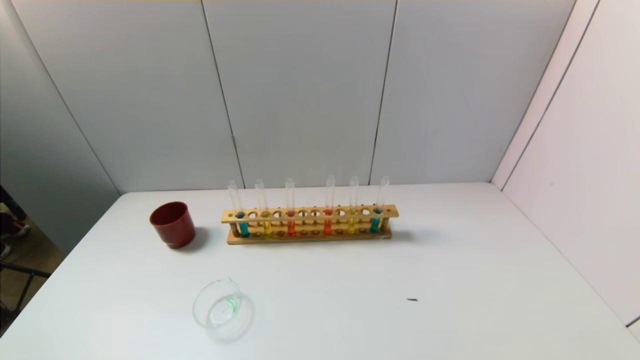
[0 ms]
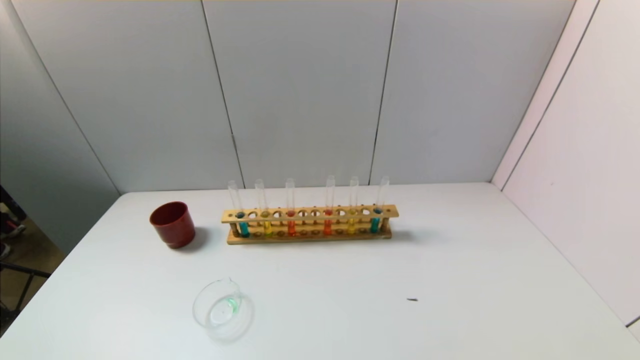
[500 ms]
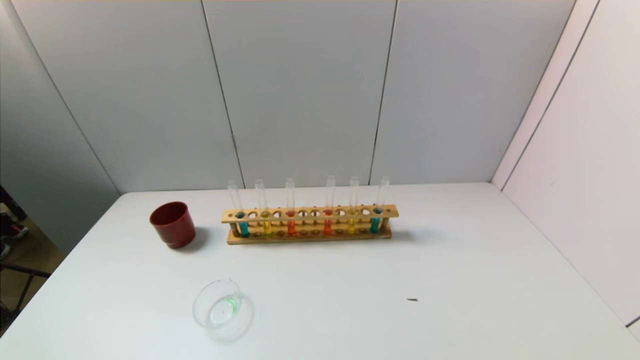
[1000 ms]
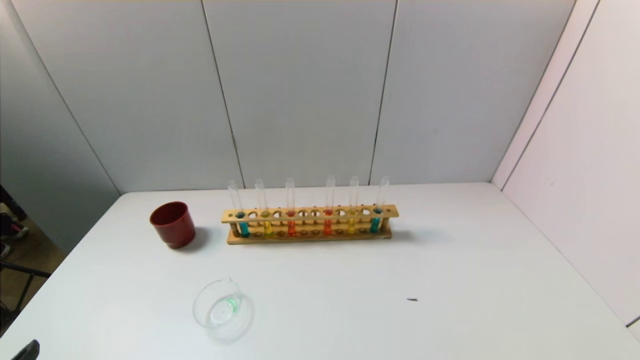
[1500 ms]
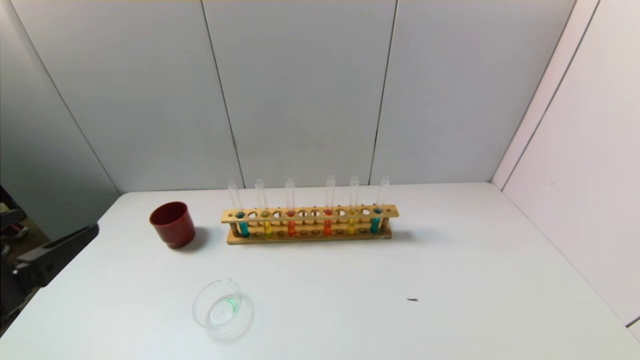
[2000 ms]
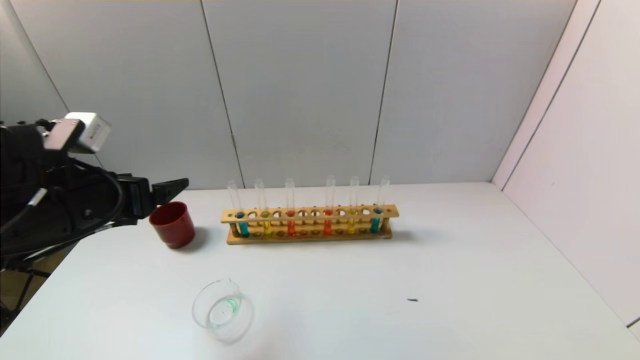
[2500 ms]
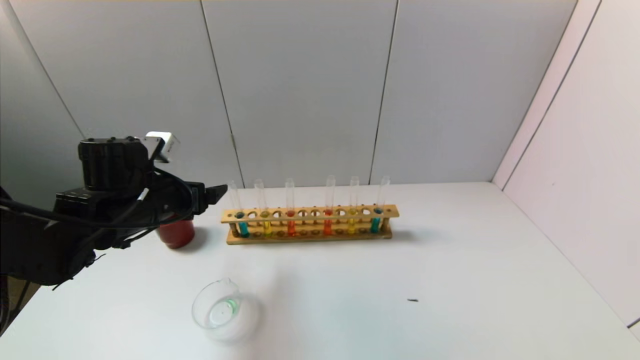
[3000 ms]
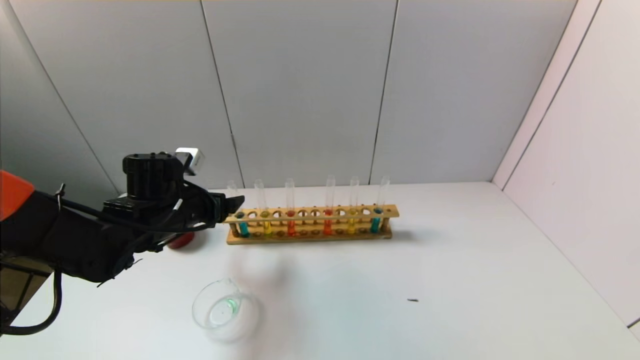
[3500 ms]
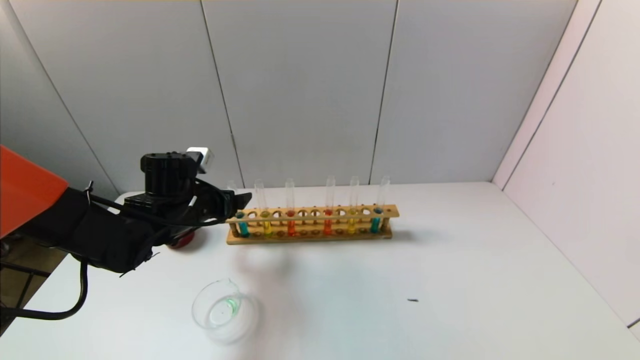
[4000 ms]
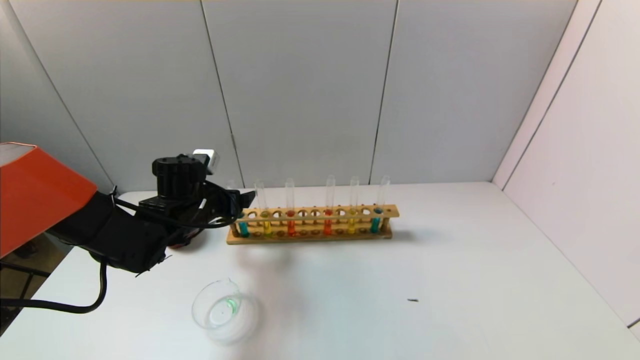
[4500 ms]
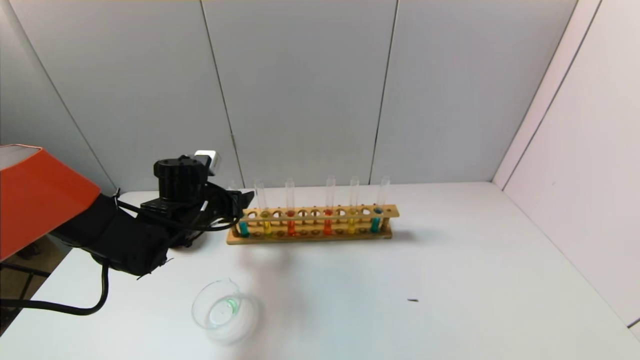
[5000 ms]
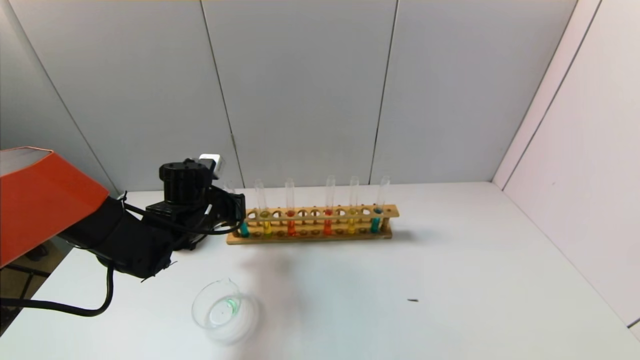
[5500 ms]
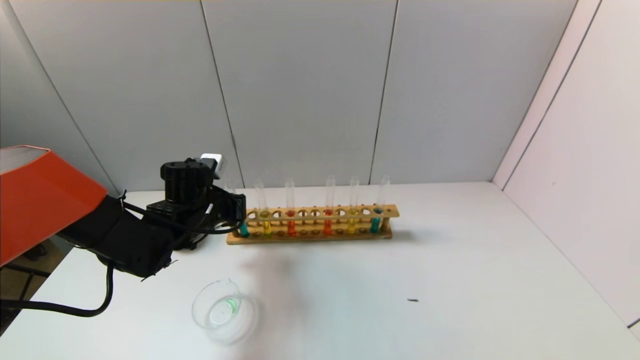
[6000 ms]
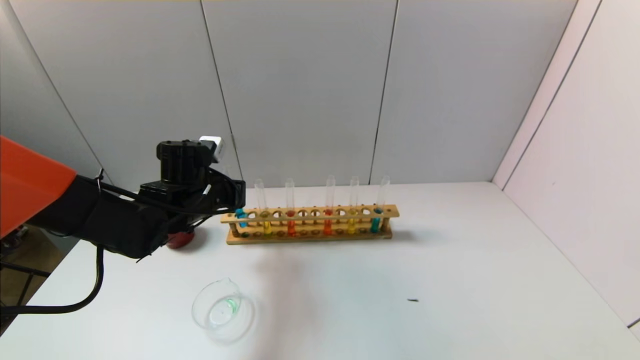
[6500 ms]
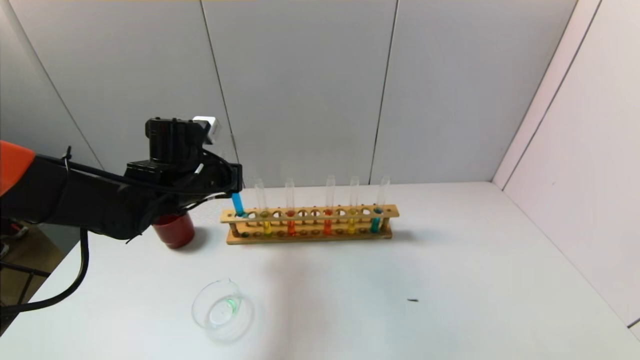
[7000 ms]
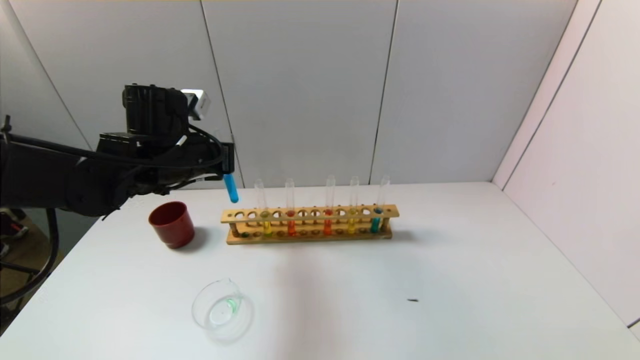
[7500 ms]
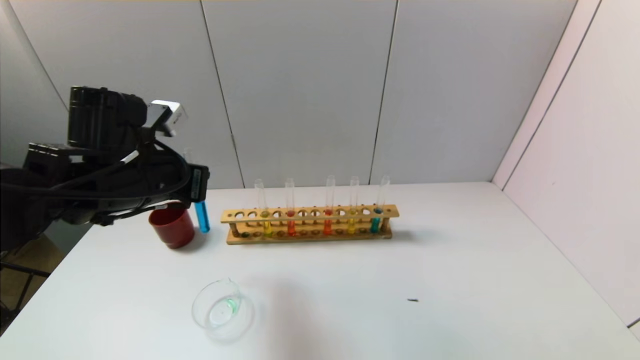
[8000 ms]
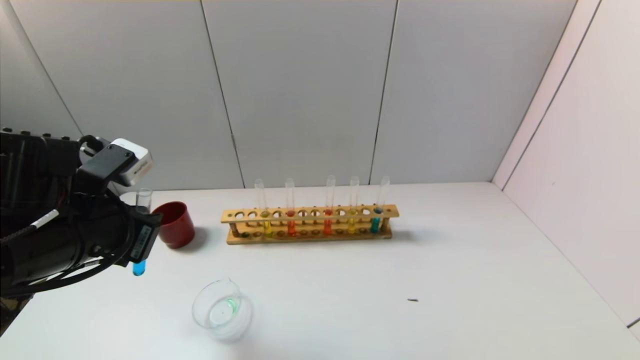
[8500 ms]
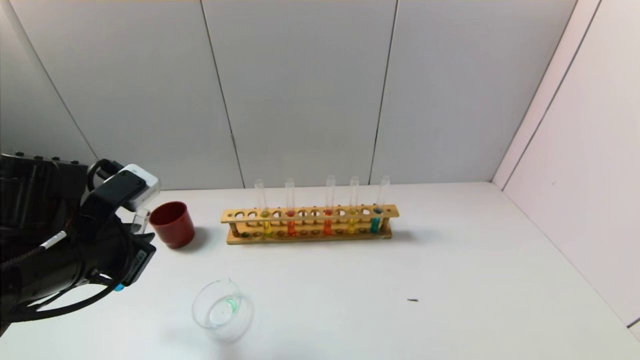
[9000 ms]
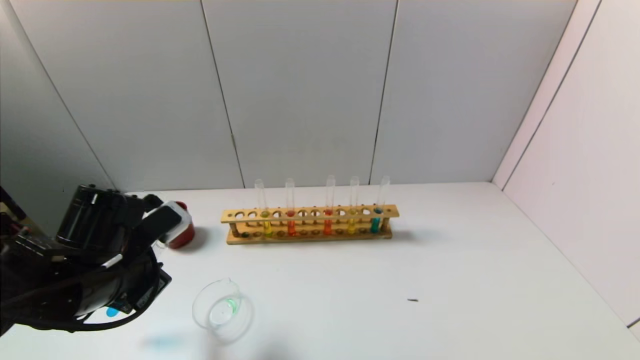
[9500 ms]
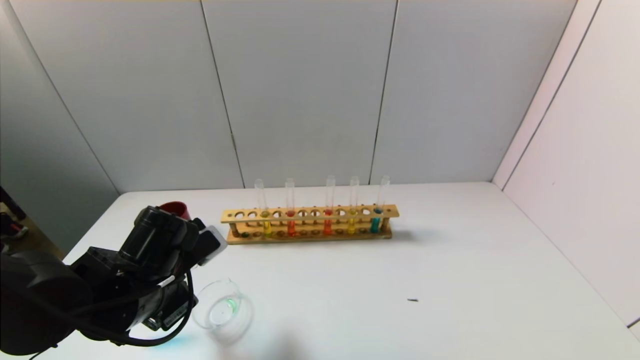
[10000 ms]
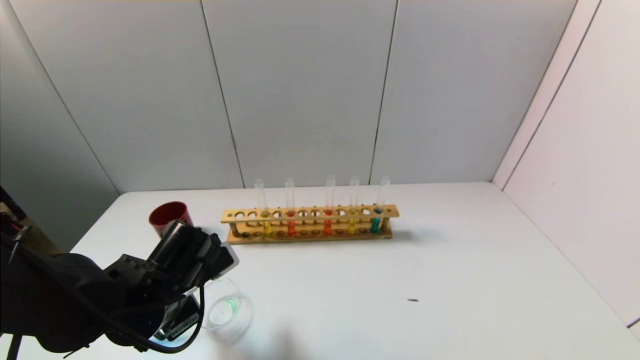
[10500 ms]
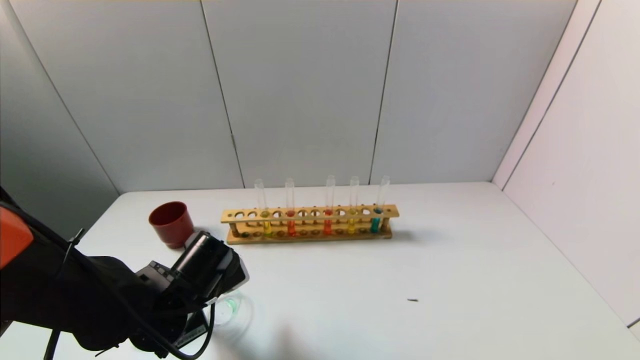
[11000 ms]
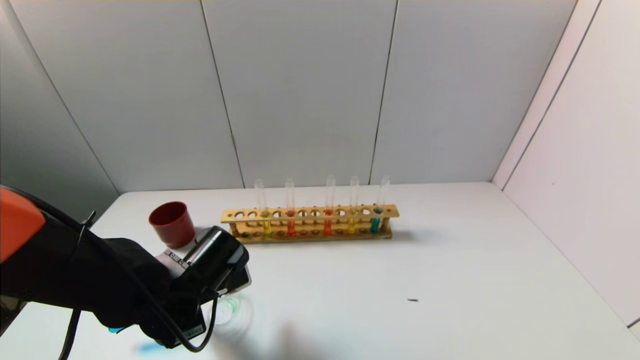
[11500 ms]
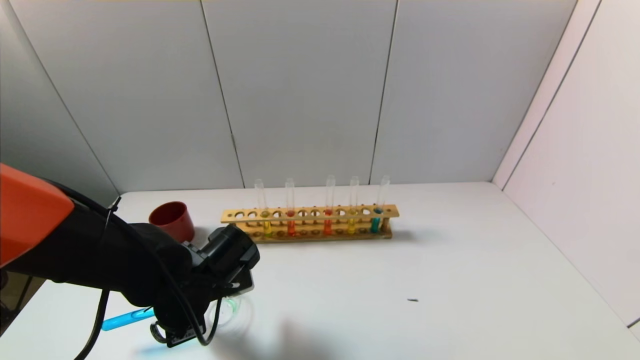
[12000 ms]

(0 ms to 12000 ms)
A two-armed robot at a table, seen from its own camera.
Task of the whole recording: pick up the test tube with yellow pigment and the test tube with blue pigment by grippers and pour them into the beaker.
Step, 0 ms - 5500 ms: Grasp the blue reagent with the left gripper.
0 ms - 2000 ms: The left gripper heads upward and forward, covering approximately 20 cm.
2000 ms - 4000 ms: The left gripper goes approximately 25 cm forward and downward.
4000 ms - 6000 ms: The left gripper closes up.
6000 ms - 8000 ms: The left gripper travels upward and backward by approximately 15 cm.
8000 ms - 10000 ms: The left gripper shifts some 10 cm downward.
10000 ms - 12000 ms: The left gripper ends up some 5 cm from where it was.

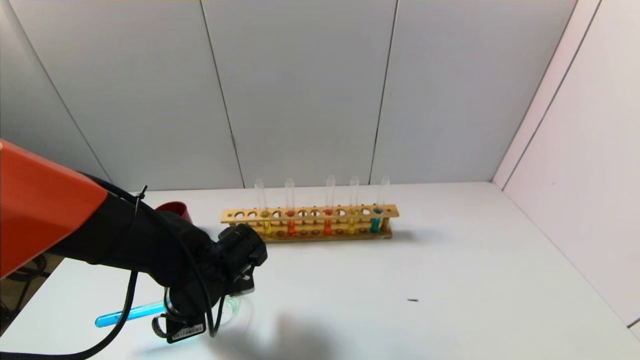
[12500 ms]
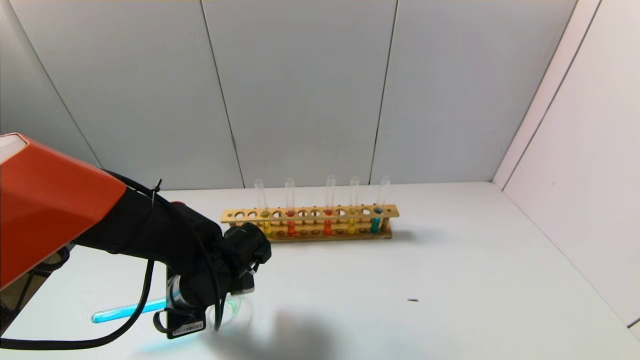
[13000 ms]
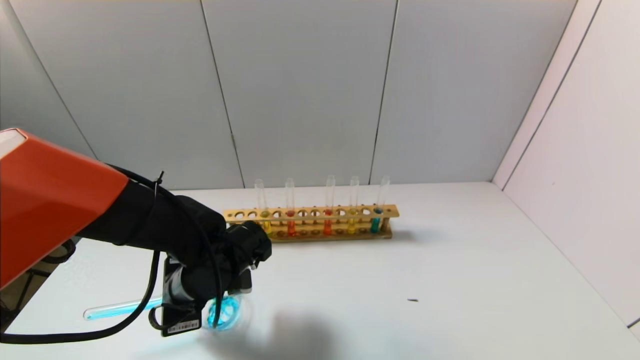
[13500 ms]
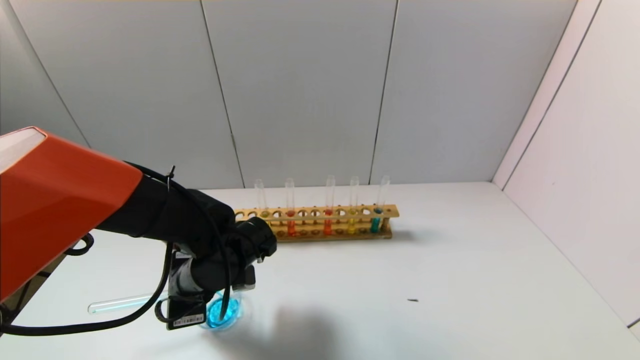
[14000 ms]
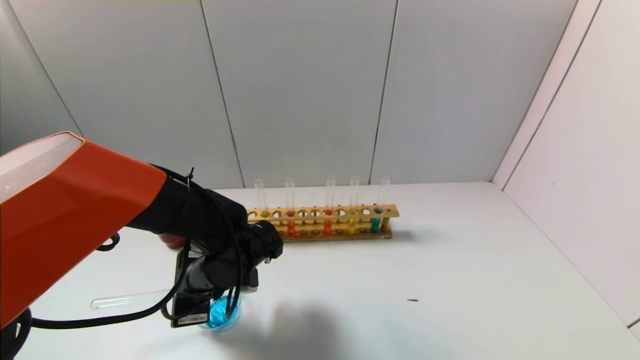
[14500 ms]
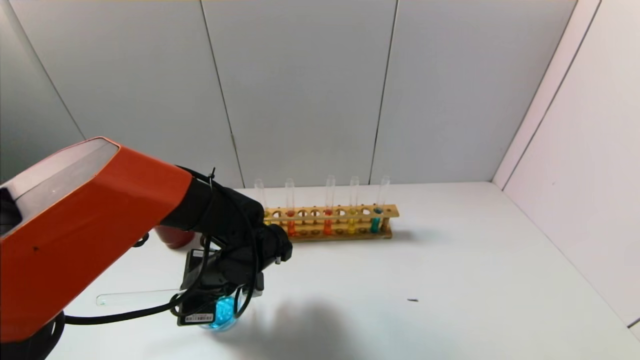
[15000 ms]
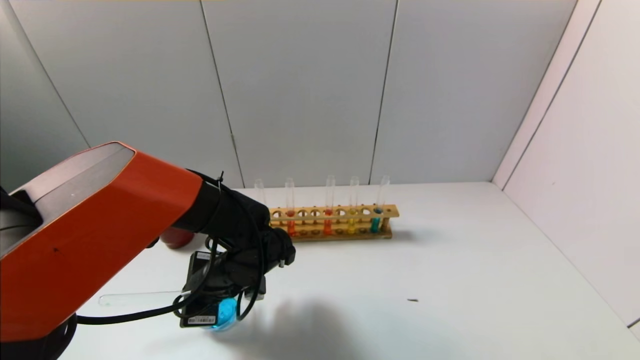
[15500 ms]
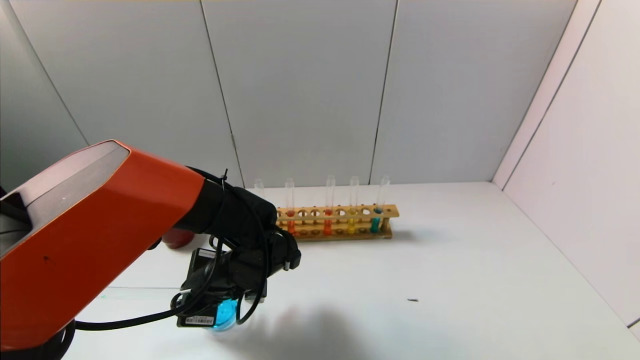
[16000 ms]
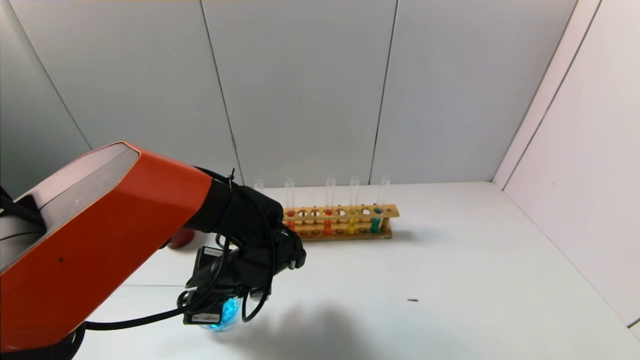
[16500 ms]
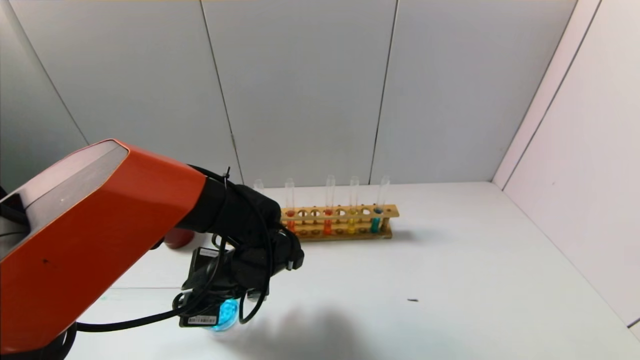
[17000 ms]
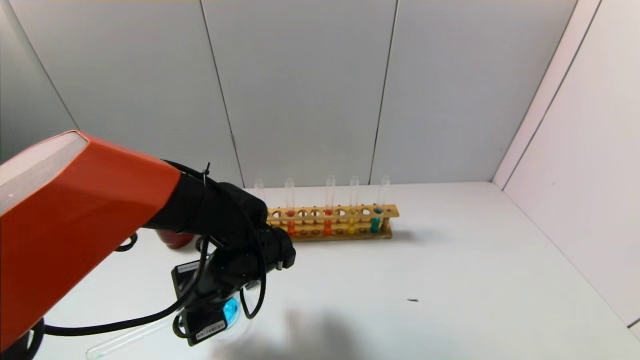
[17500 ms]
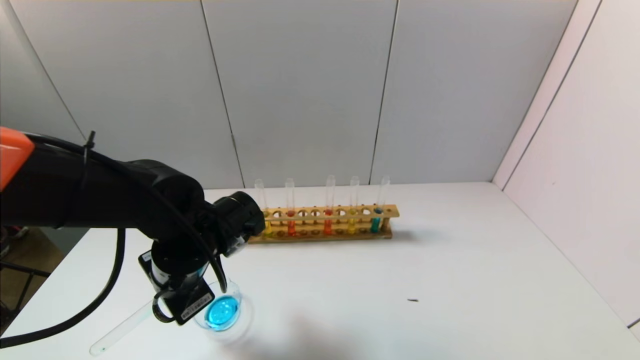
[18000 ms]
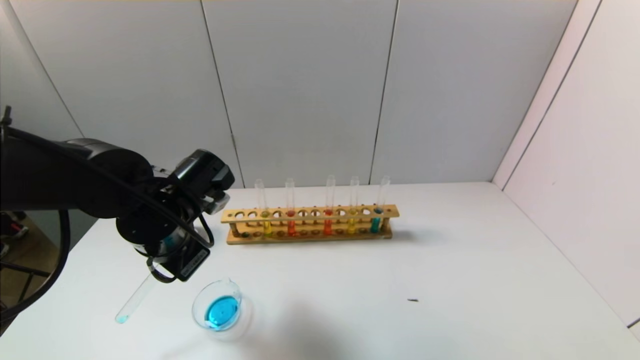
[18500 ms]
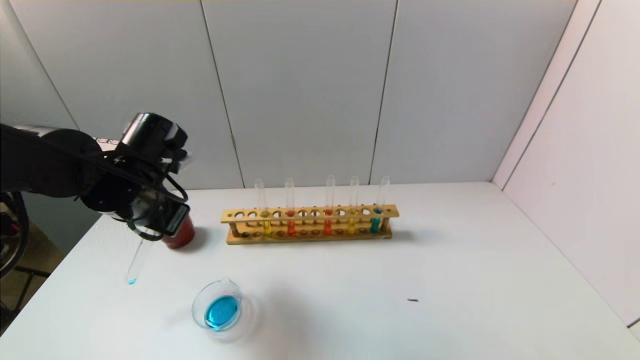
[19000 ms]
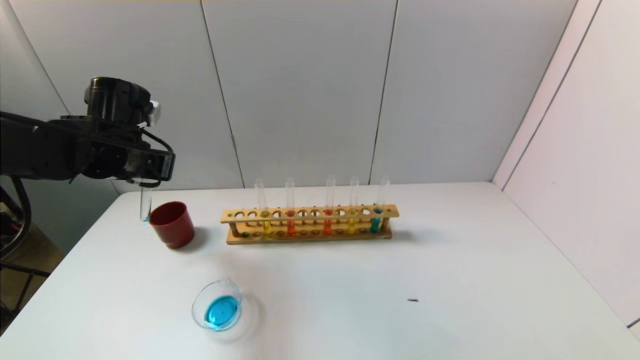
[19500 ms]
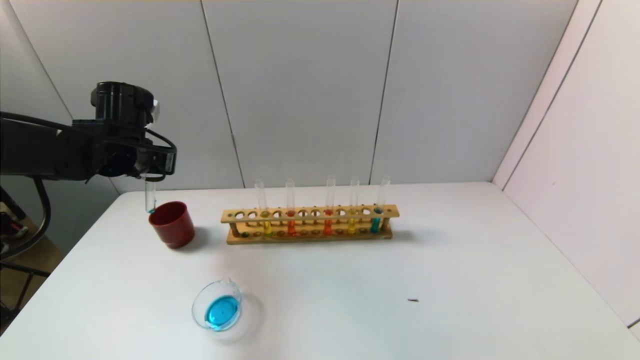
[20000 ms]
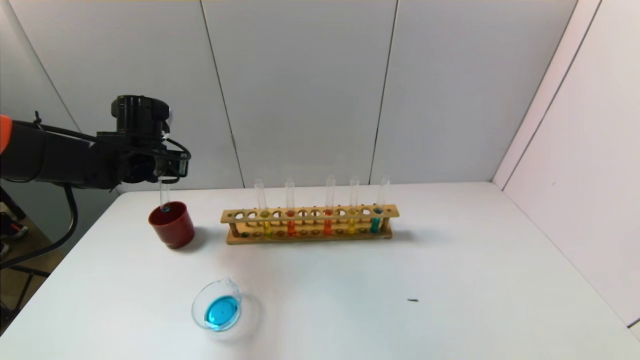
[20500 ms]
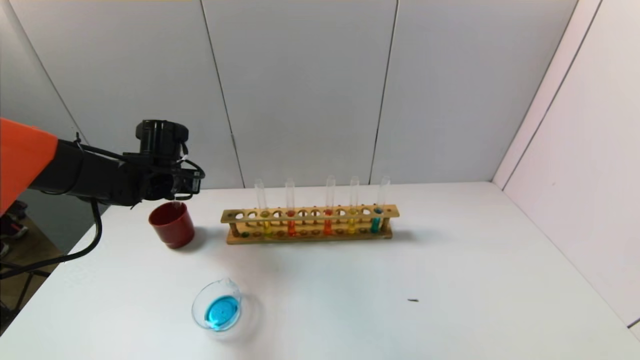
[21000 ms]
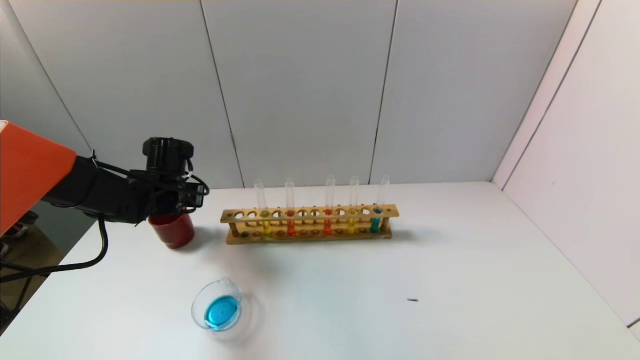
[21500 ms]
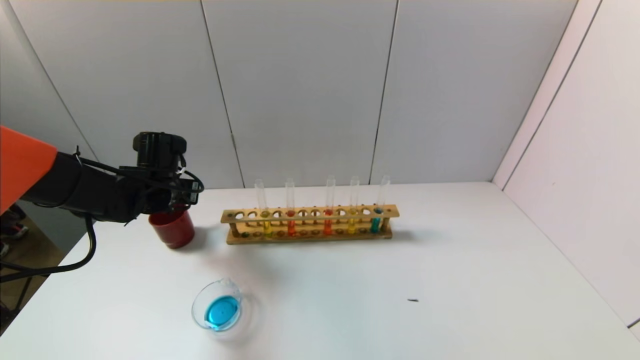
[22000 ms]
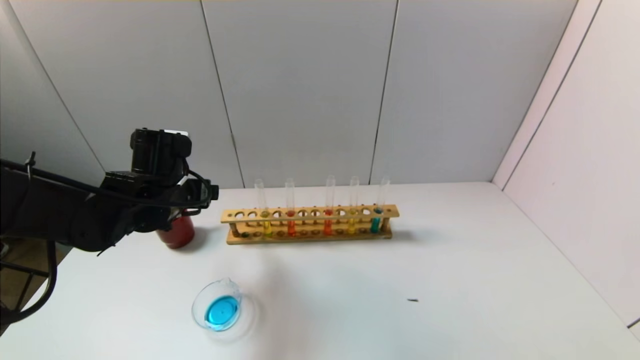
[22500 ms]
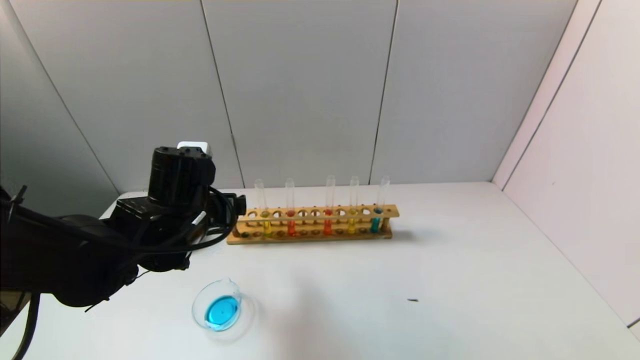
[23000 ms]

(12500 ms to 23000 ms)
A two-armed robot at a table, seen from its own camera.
Task of the whole recording: pick up the test tube with yellow pigment and the test tube with blue pigment by grippers and pour them into the beaker.
Step, 12500 ms - 14500 ms: Pour the blue reagent into the graduated cylinder with the left gripper.
Step, 15000 ms - 22000 ms: Place the test tube into the brown cup with the left gripper.
12500 ms - 14500 ms: The grippers move only a little.
14500 ms - 16500 ms: The grippers move only a little.
16500 ms - 19000 ms: The left gripper heads to the left and upward, covering about 15 cm.
19000 ms - 21000 ms: The left gripper moves forward, some 10 cm.
21000 ms - 23000 ms: The left gripper is displaced backward and to the right by approximately 15 cm, and opens.
